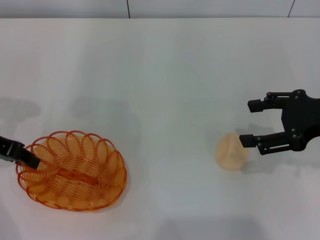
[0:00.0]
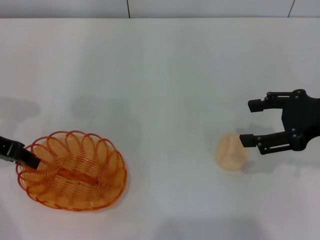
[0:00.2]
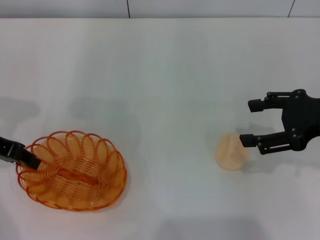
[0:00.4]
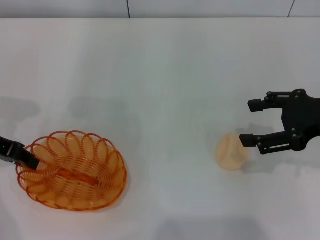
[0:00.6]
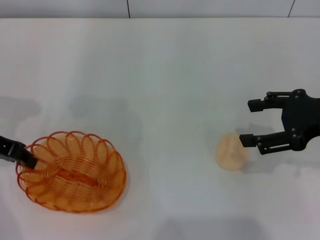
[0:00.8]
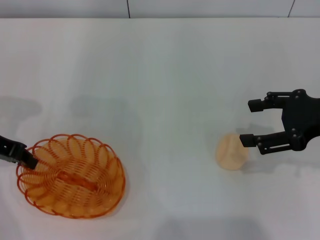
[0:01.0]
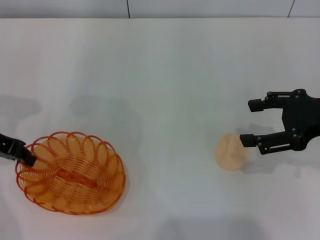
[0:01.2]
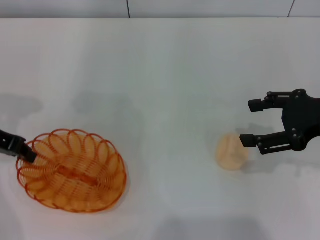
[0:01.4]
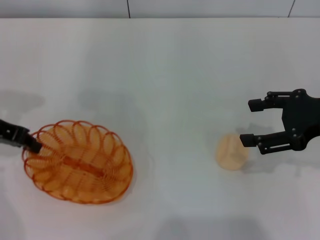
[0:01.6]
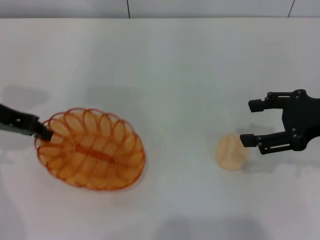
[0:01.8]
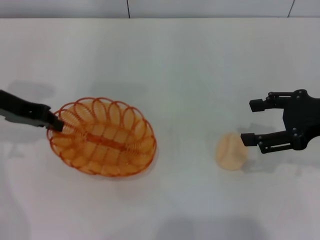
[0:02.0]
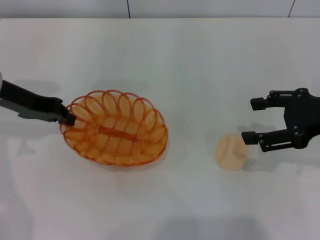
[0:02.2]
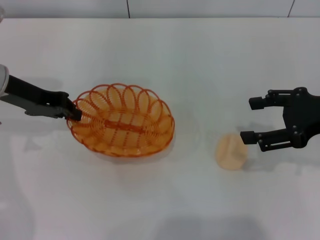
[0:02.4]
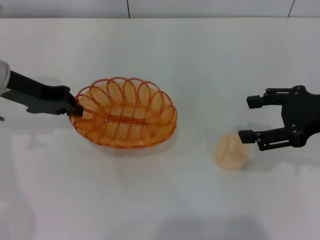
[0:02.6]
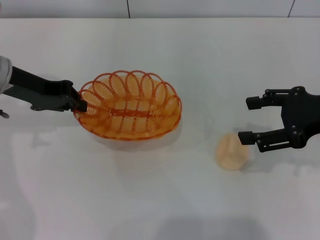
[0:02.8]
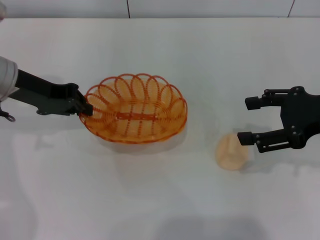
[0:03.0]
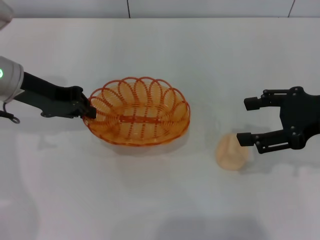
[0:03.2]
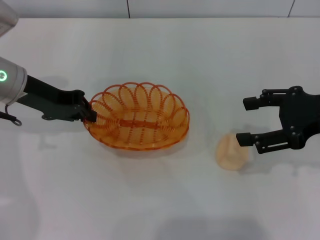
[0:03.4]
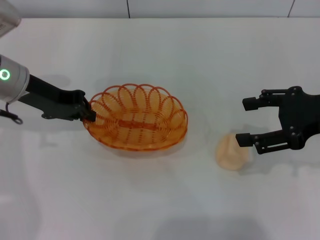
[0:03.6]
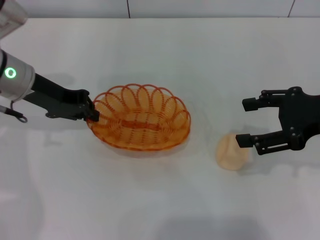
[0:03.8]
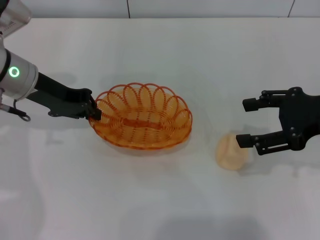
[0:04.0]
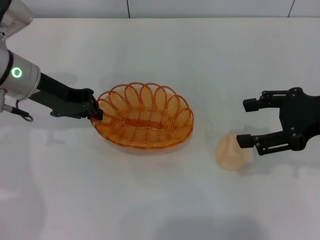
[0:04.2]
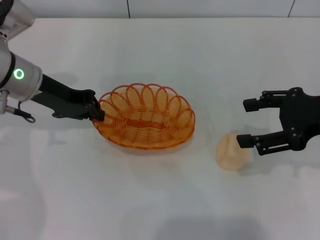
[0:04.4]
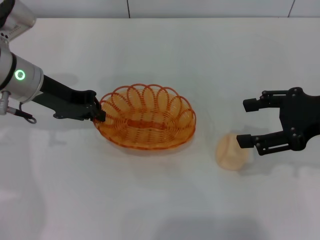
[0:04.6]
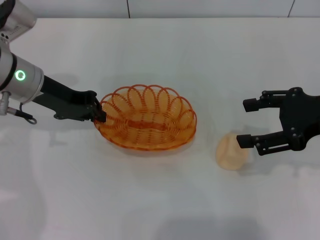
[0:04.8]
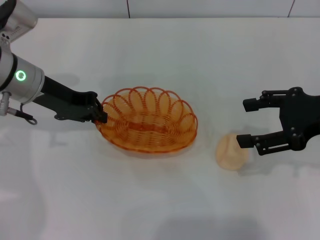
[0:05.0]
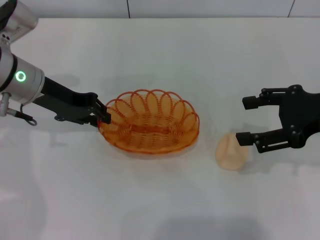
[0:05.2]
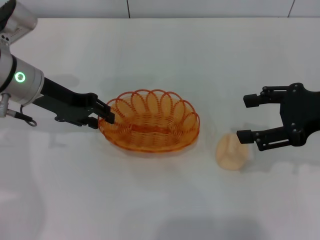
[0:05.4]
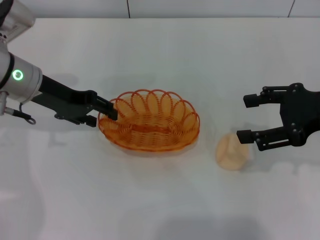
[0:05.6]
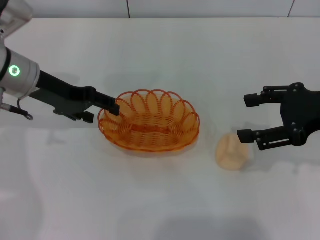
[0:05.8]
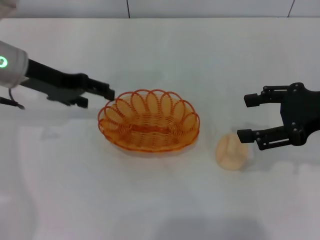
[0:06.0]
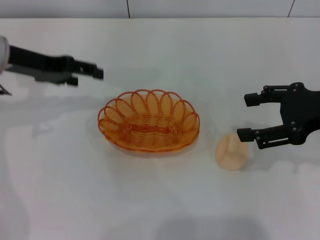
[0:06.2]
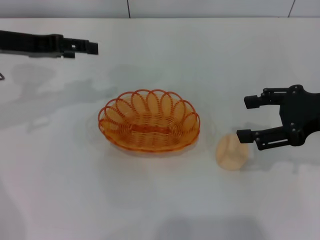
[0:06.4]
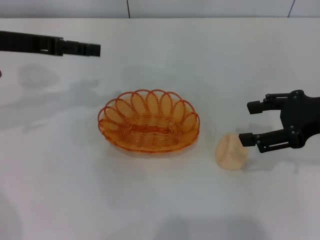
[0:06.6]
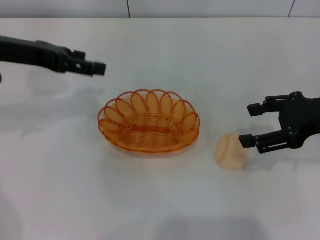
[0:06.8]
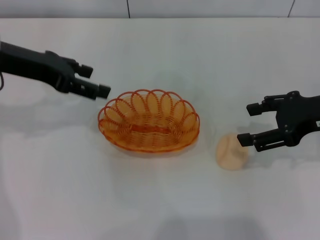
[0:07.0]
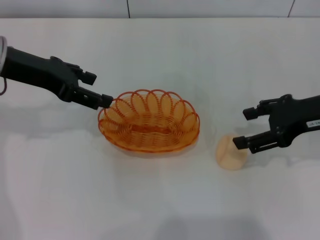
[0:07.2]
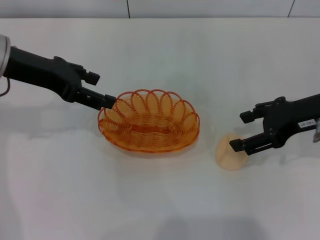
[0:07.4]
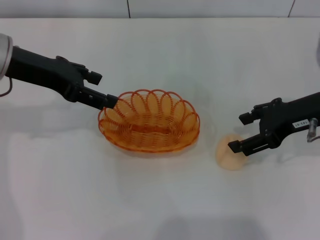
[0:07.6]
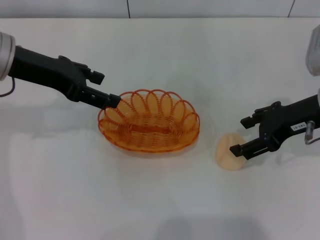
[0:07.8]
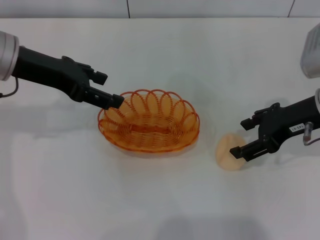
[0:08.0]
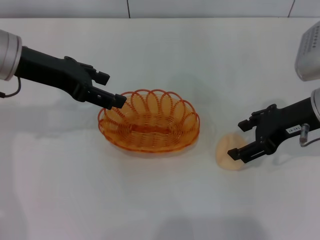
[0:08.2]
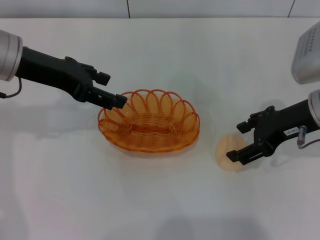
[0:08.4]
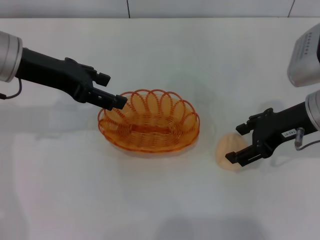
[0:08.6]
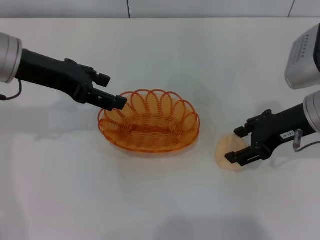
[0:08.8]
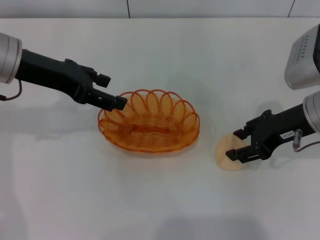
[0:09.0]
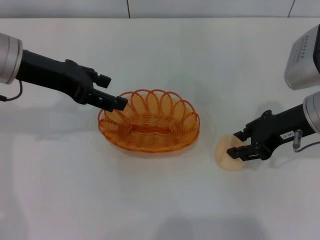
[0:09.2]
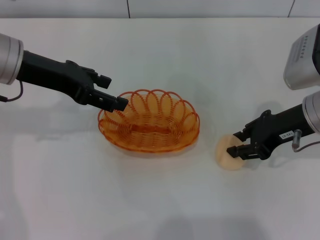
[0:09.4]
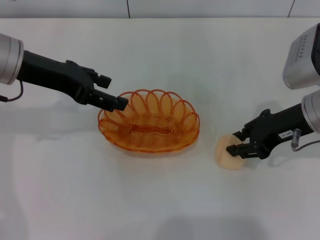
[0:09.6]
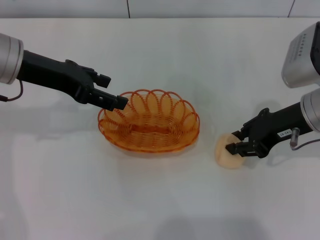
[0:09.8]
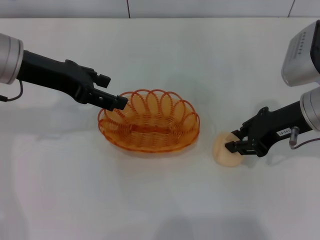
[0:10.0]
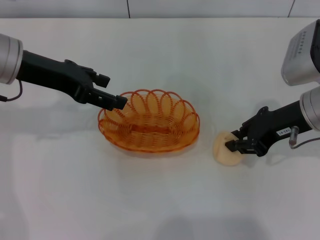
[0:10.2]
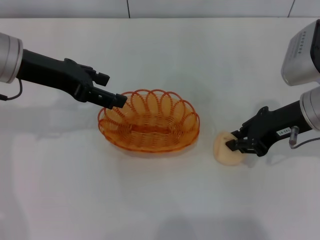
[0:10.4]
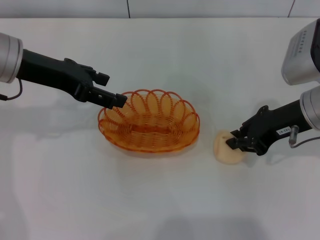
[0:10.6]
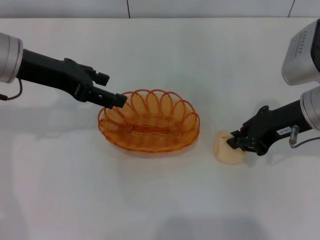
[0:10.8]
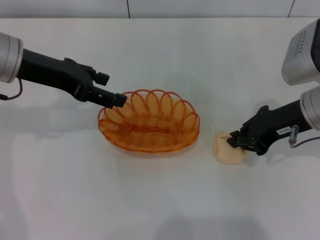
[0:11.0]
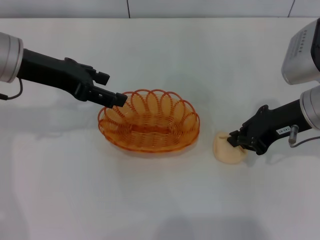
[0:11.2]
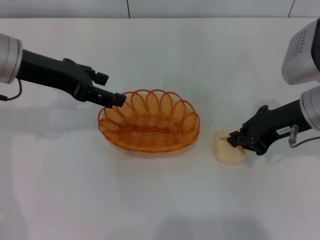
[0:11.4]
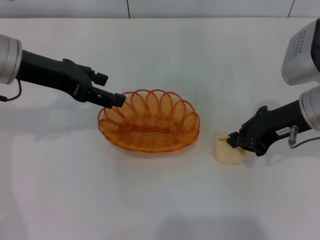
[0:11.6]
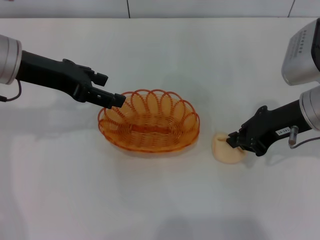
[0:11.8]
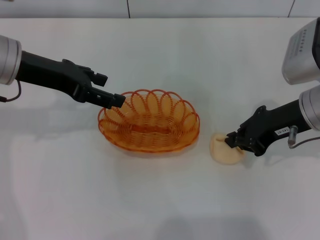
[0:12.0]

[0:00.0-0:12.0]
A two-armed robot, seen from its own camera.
Step, 0:00.0 to 0:02.2: Pick up the basket with the left gripper.
Step, 0:02.6 to 0:06.2: Place the basket in the center of view with the left gripper.
0:00.0 to 0:01.6: The grippers move only a little.
0:01.6 to 0:03.0: The left gripper moves some 5 cm.
0:03.0 to 0:04.4: The grippers stay close to where they were, moving slightly.
0:04.4 to 0:06.0: The left gripper opens up.
0:06.0 to 0:07.6: The right gripper changes place by some 5 cm.
0:07.6 to 0:09.0: The grippers stay close to where they were, moving slightly.
0:09.0 to 0:10.4: The right gripper closes its fingers.
0:10.4 to 0:12.0: Both grippers stay put.

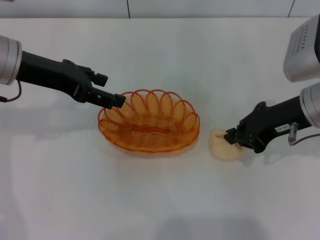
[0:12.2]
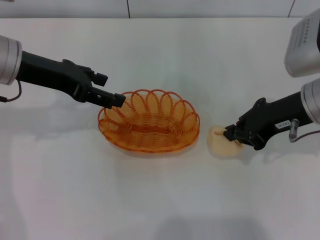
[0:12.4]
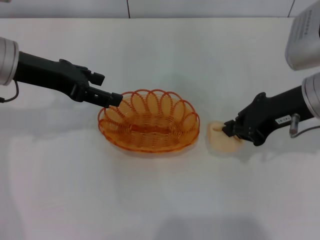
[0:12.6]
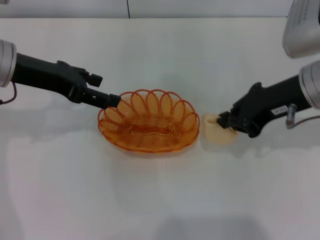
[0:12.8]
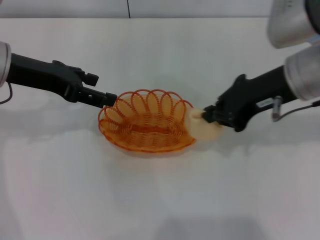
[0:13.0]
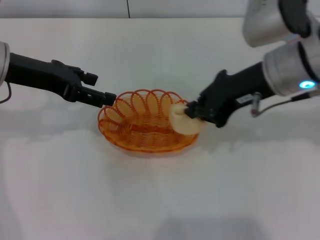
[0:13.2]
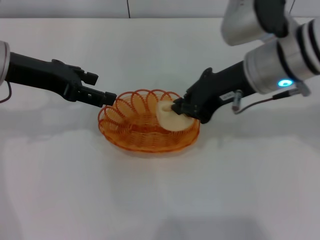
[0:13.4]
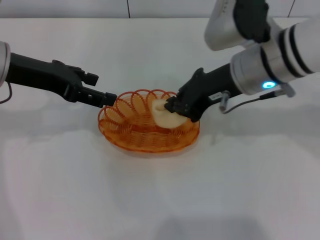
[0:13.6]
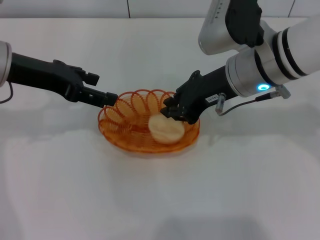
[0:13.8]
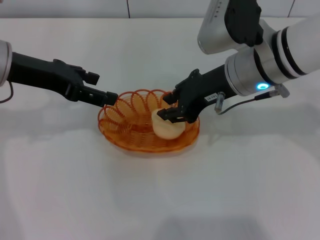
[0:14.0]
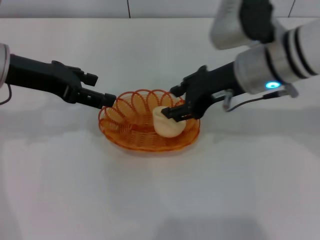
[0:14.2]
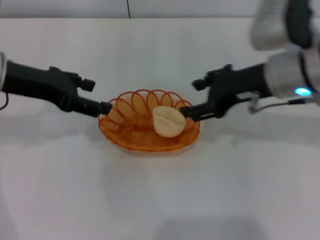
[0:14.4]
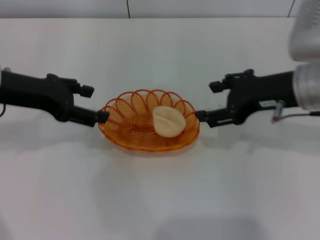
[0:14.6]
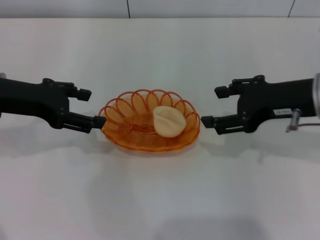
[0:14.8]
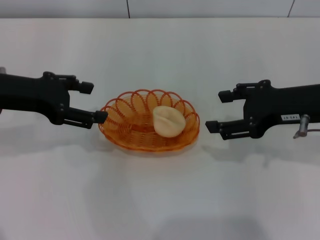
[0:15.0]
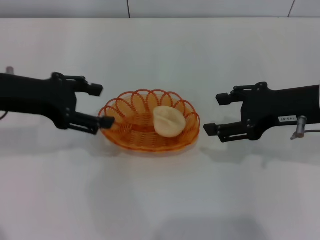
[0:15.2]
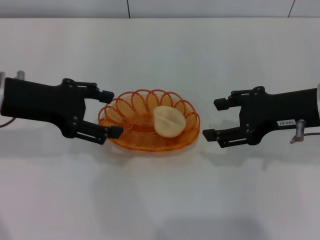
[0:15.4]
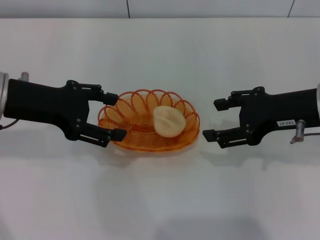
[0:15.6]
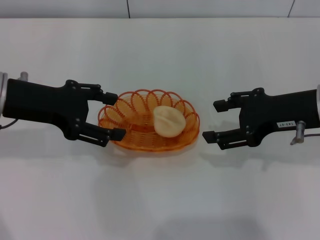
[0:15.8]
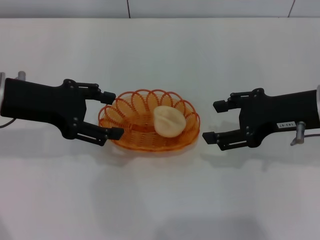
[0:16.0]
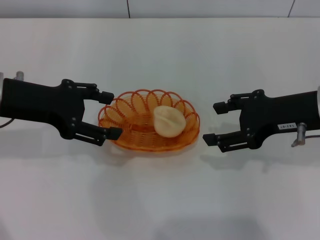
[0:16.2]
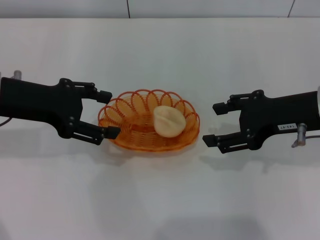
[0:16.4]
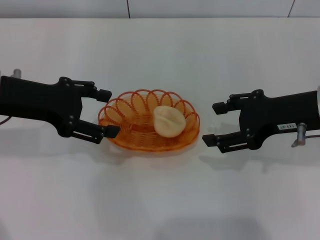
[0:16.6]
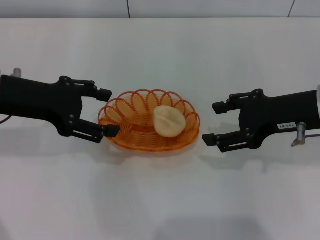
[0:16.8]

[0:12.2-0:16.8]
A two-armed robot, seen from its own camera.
Step, 0:13.0 to 0:14.6: Place the egg yolk pastry into the basket with the right gripper.
0:12.2 to 0:13.8: The right gripper goes about 10 cm to the left.
0:13.8 to 0:15.2: The right gripper travels to the right and backward by some 10 cm, and opens its fingers.
0:15.2 to 0:16.8: The grippers make only small movements.

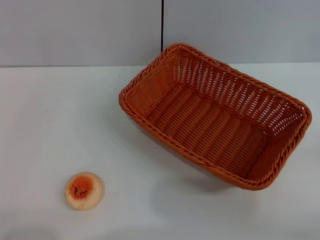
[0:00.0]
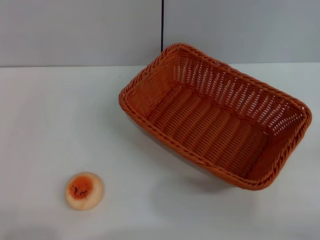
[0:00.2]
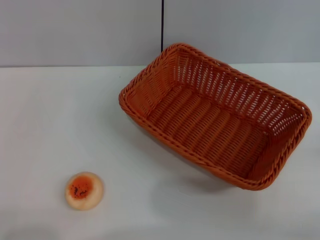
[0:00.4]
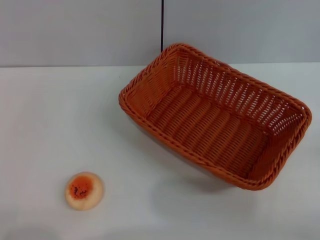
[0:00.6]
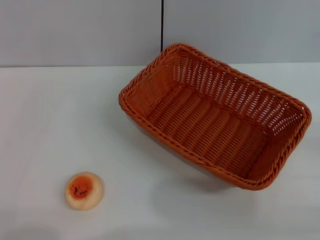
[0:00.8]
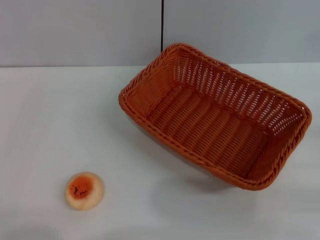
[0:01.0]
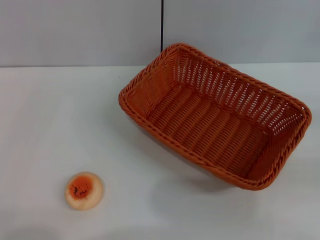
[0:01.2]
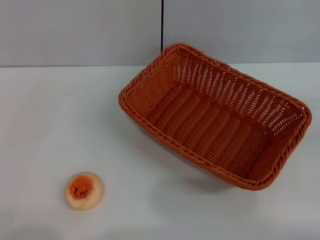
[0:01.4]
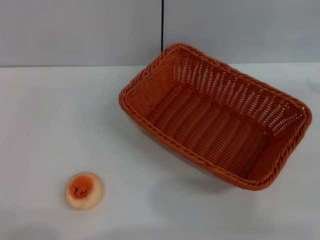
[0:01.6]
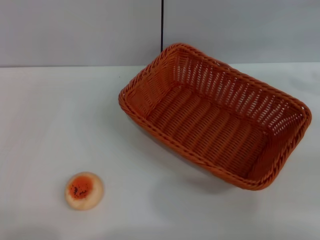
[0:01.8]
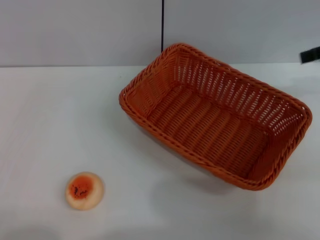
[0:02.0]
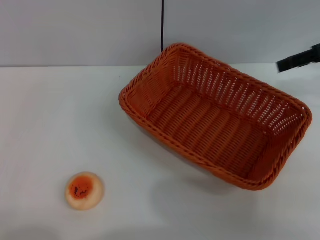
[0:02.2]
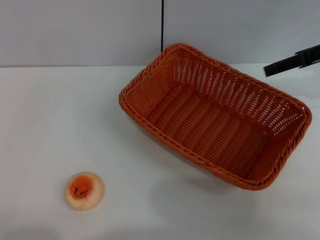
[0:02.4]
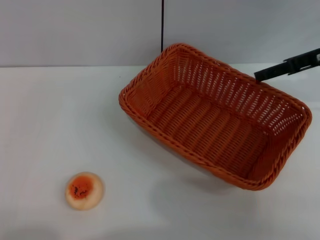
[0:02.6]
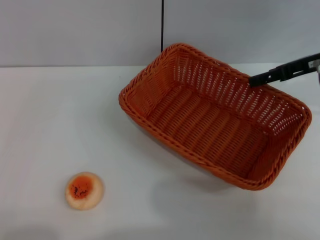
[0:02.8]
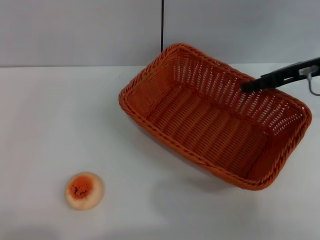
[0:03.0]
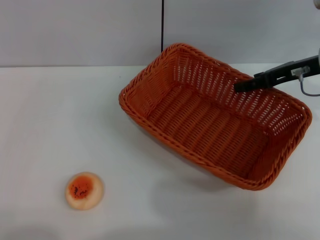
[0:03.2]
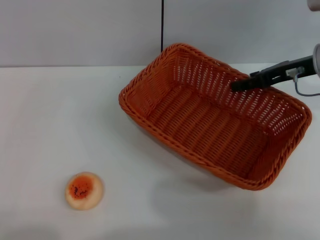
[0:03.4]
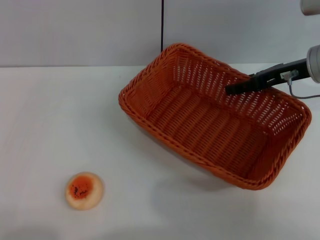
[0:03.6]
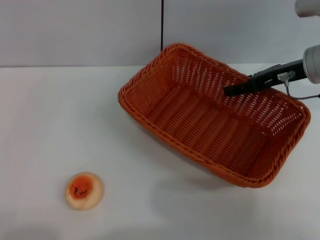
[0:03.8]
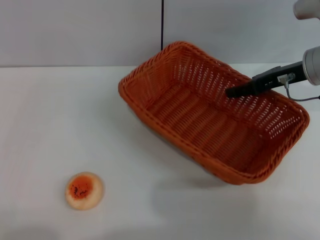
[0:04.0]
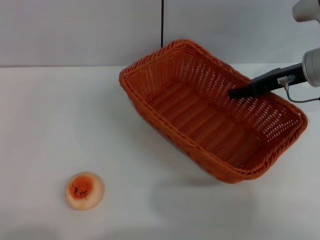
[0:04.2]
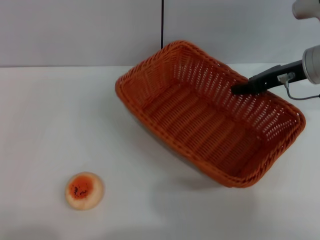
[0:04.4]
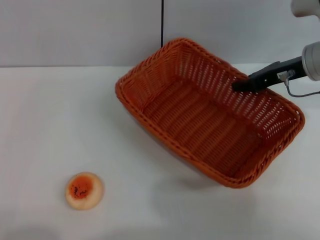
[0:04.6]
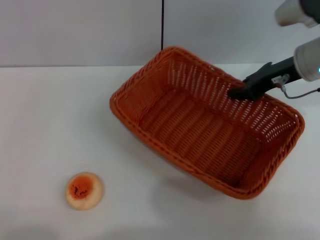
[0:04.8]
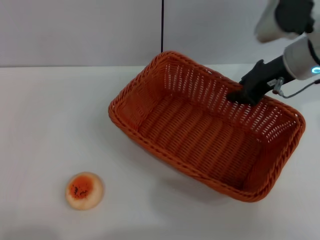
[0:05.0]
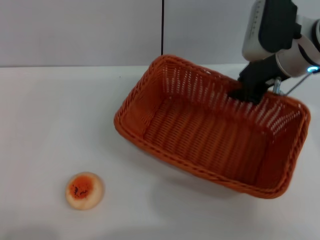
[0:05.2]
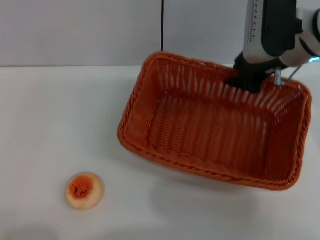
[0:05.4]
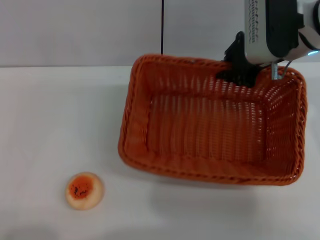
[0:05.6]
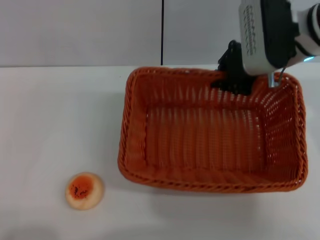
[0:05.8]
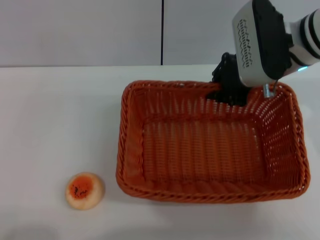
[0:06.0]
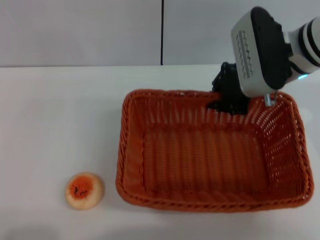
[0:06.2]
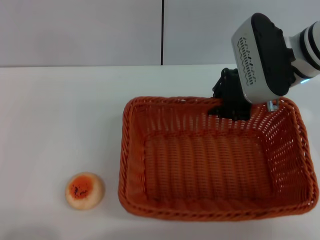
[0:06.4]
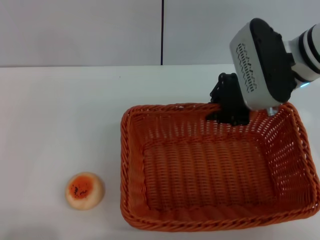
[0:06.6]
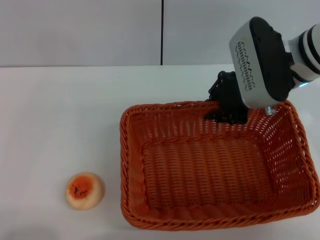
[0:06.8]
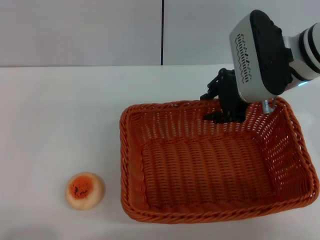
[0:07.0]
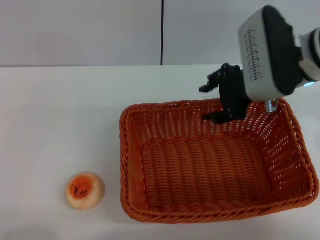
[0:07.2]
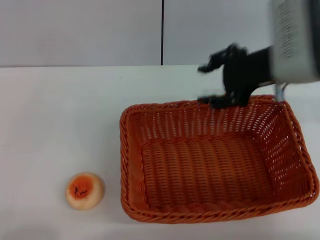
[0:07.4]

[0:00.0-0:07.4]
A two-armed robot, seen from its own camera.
Step, 0:00.0 to 0:07.2: Move the basket to the center of view with the right gripper.
0:01.4 to 0:03.0: The right gripper is displaced to the left and forward by roughly 20 cm.
0:03.0 to 0:04.4: The right gripper closes up.
0:04.4 to 0:06.0: The right gripper moves to the left, roughly 10 cm, and closes.
0:06.0 to 0:07.4: The right gripper ends up approximately 5 cm from where it was, and opens its fingers.
